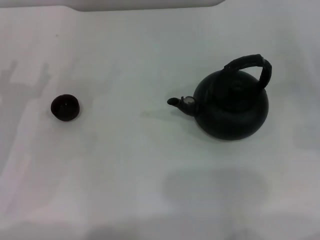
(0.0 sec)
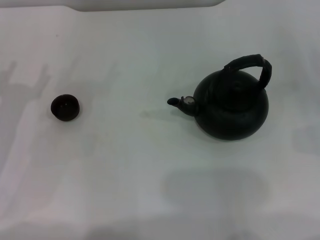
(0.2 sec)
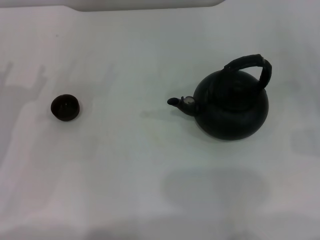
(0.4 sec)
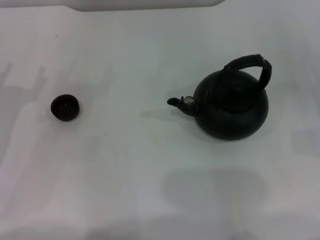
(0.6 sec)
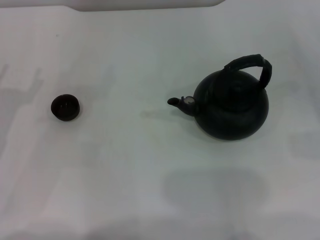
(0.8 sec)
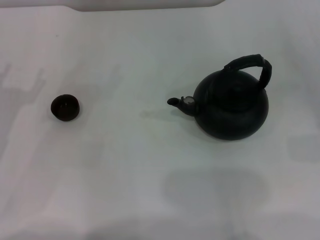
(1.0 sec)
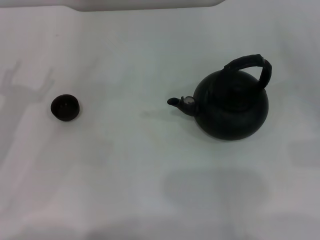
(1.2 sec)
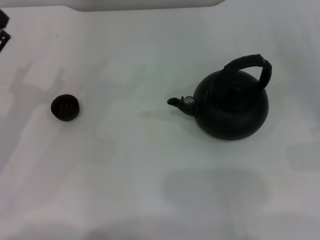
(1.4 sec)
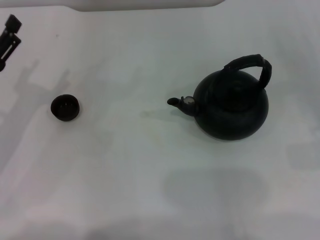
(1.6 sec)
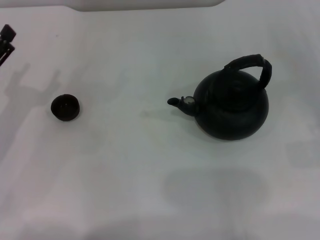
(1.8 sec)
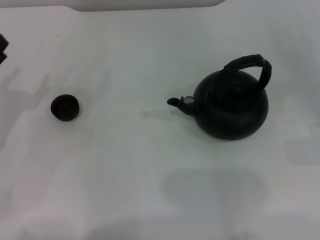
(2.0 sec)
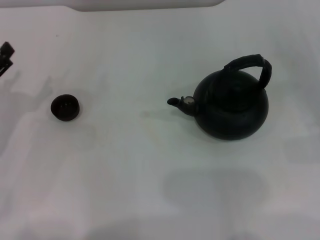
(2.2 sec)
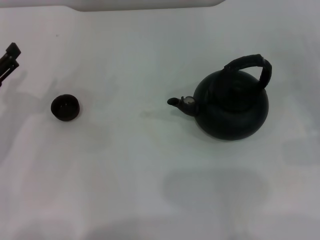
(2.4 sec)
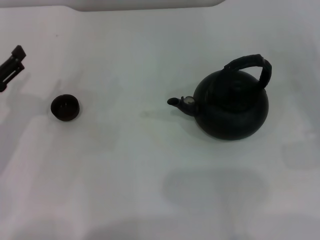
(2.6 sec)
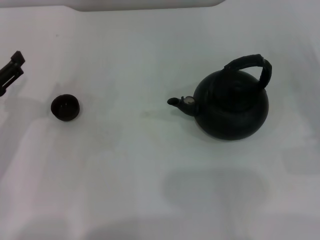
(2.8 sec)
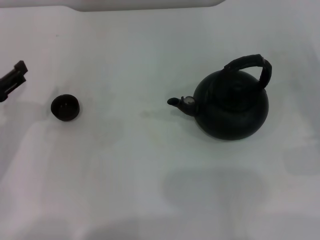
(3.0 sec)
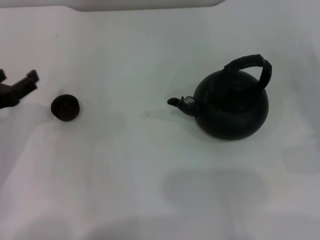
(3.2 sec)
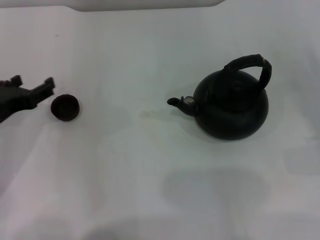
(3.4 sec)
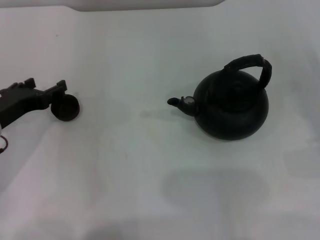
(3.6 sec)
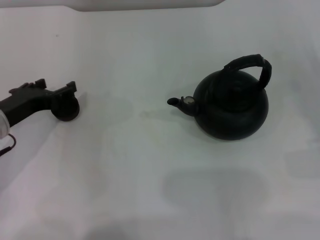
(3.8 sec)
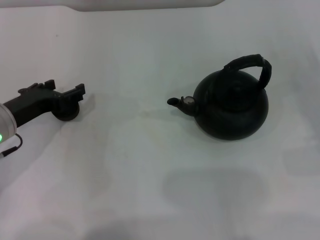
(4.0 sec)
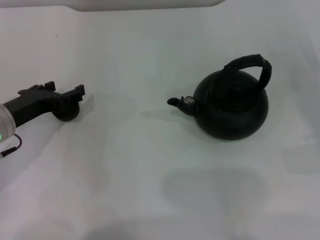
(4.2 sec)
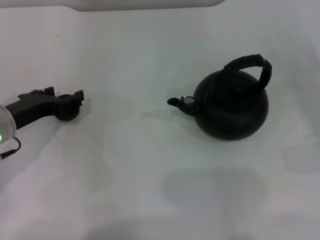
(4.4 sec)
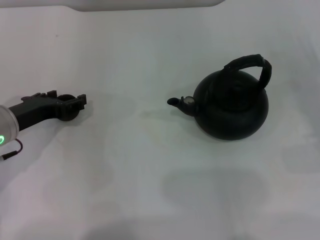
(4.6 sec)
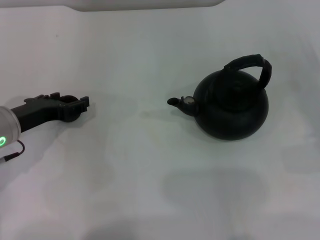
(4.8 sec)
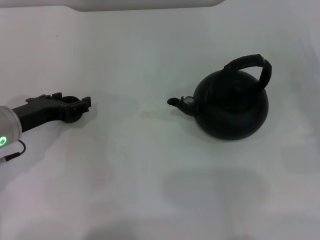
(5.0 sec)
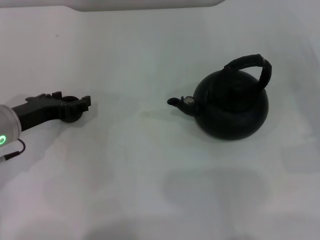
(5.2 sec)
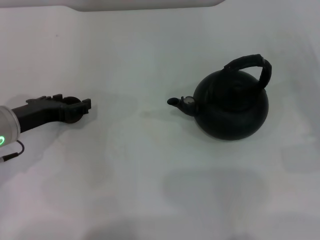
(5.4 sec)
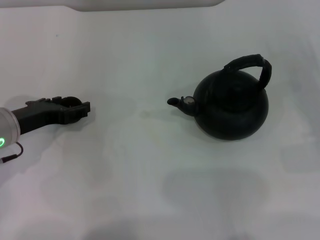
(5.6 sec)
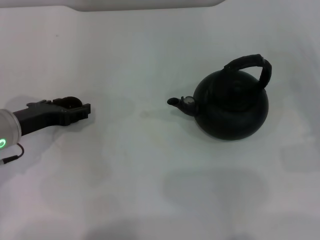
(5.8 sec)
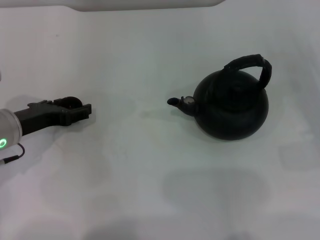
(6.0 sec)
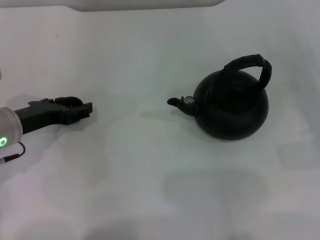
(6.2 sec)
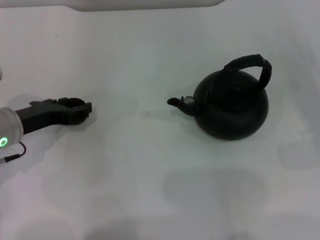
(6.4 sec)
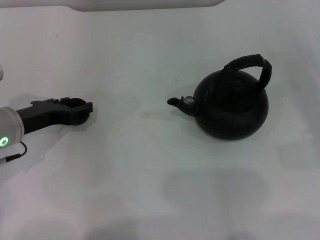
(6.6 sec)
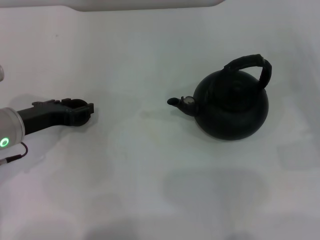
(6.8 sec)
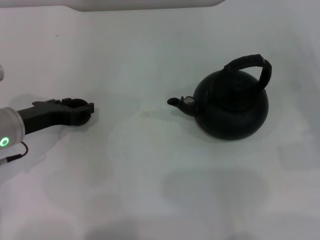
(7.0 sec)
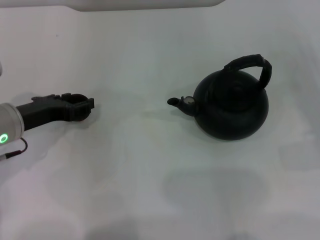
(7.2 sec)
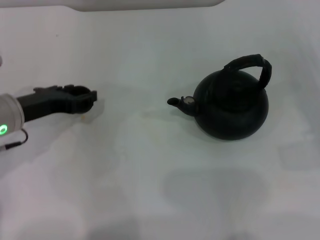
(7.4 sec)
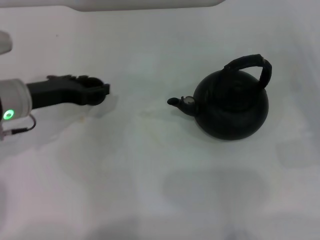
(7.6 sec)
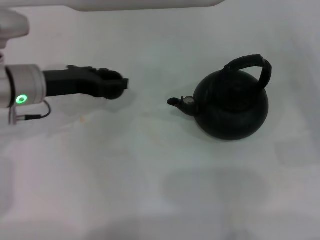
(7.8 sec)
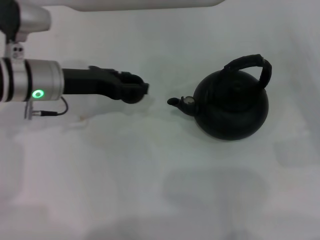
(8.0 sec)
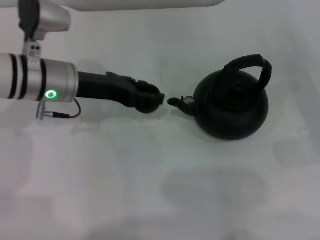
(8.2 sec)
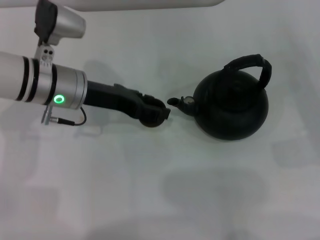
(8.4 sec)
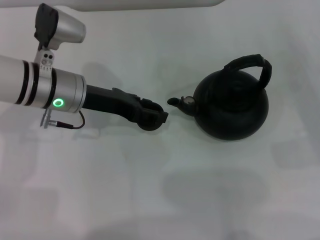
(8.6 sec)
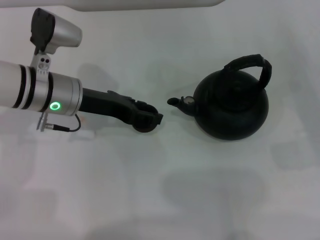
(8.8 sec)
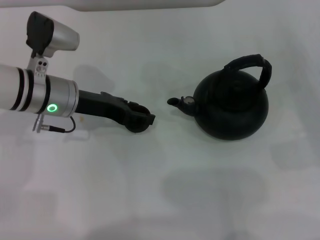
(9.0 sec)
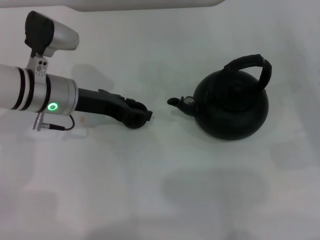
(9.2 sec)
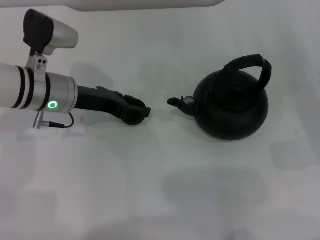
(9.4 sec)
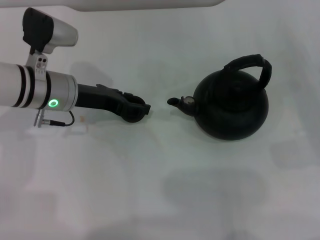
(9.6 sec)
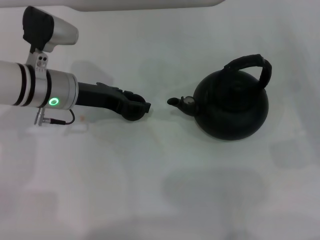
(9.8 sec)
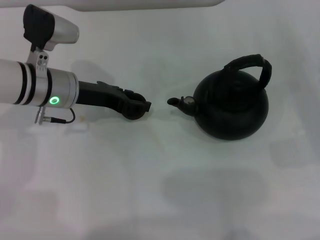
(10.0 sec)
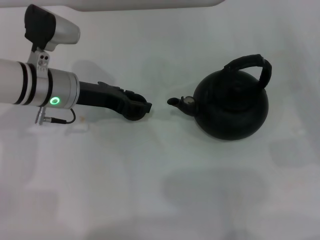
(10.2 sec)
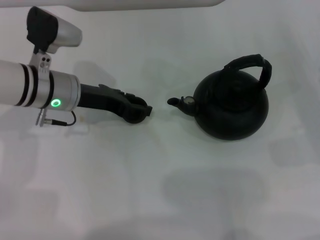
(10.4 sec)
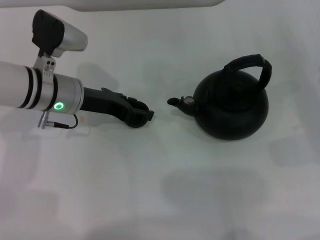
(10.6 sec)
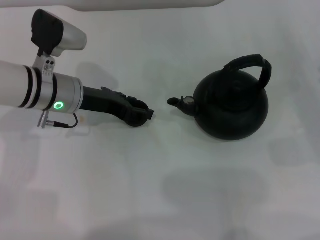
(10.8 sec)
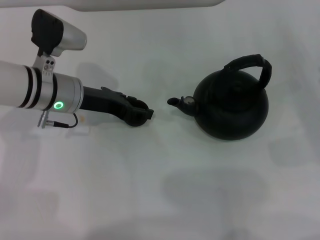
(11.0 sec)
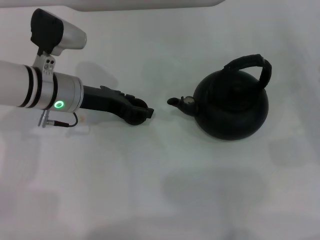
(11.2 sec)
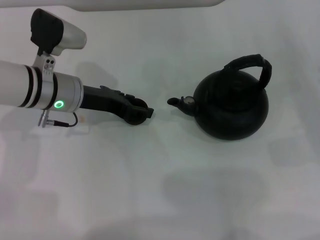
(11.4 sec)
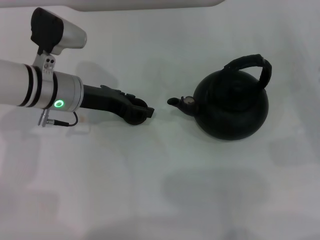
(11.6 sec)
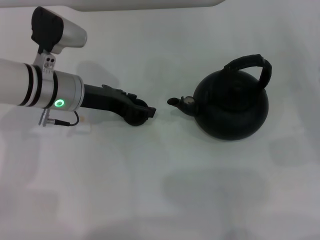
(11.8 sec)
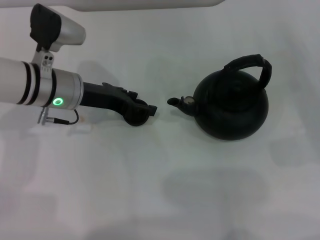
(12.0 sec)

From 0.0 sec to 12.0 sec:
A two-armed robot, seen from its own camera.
Task of the whole recording: Grasp the handle of the teapot with one hand and pour tea into the teacup.
Step, from 0.0 sec to 7.4 sec: Pick up the teacup with the left gripper.
From 3.0 sec to 4.4 sec: The left gripper moves some 5 cm.
From 4.4 sec to 6.0 sec: The grippers make only small movements.
From 6.0 sec to 7.6 sec: The left gripper closes.
From 7.6 sec to 9.0 sec: The left gripper travels to the right by approximately 5 cm.
From 9.0 sec to 10.4 sec: The grippers make only small movements.
From 10.4 sec to 12.0 sec: The left gripper opens.

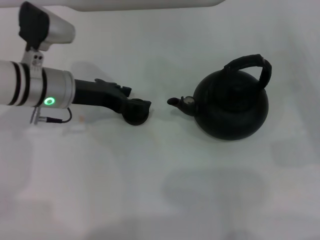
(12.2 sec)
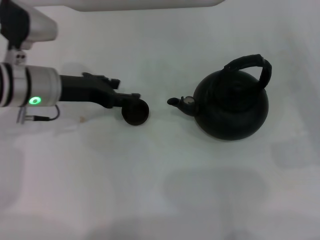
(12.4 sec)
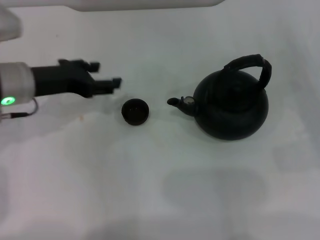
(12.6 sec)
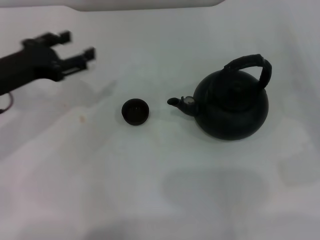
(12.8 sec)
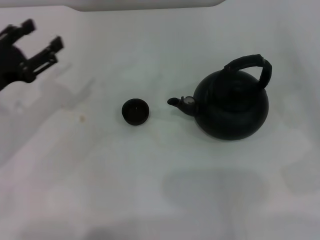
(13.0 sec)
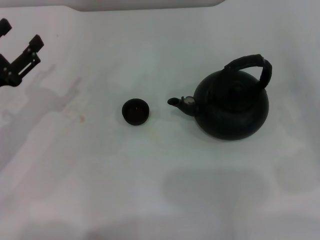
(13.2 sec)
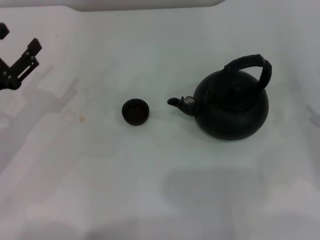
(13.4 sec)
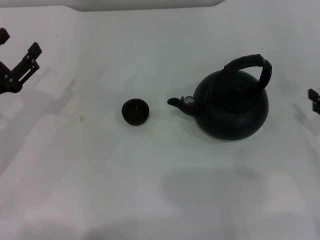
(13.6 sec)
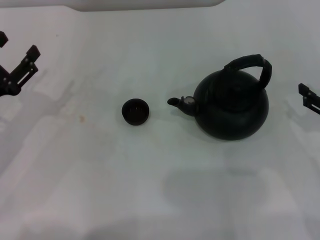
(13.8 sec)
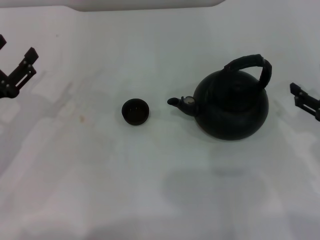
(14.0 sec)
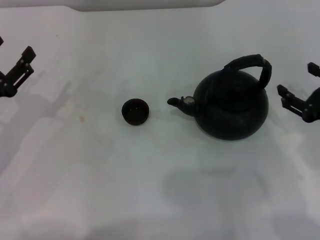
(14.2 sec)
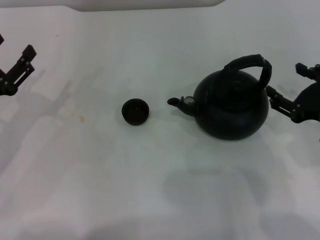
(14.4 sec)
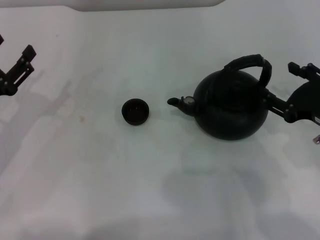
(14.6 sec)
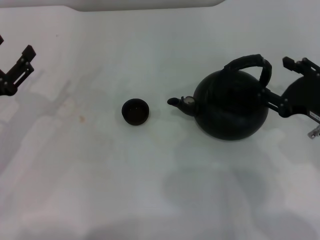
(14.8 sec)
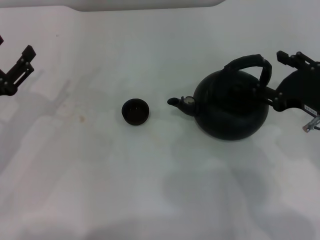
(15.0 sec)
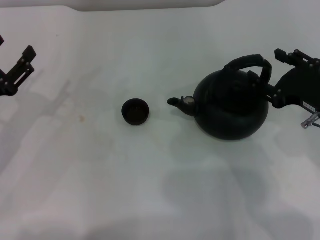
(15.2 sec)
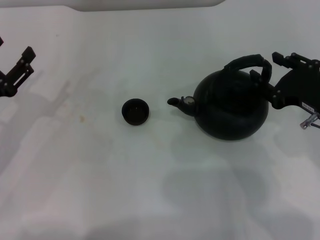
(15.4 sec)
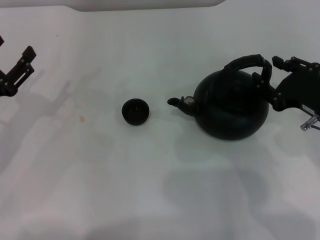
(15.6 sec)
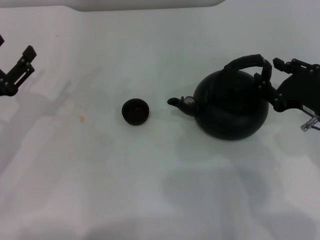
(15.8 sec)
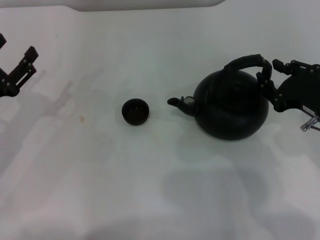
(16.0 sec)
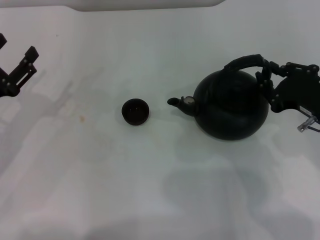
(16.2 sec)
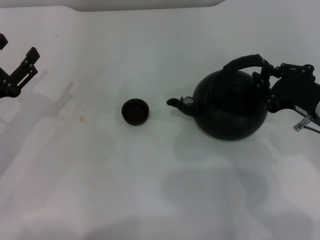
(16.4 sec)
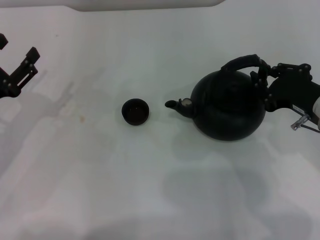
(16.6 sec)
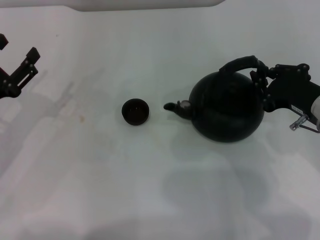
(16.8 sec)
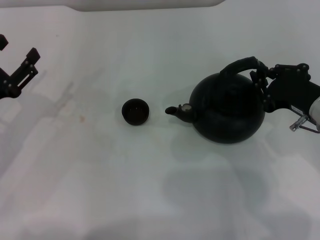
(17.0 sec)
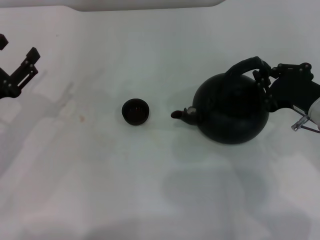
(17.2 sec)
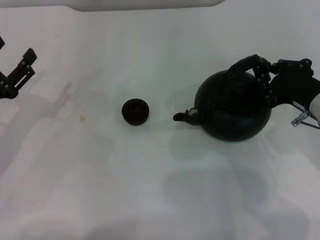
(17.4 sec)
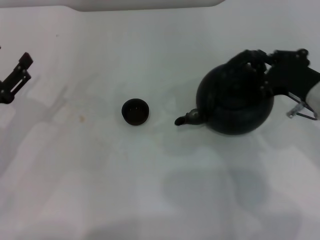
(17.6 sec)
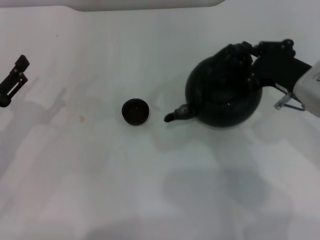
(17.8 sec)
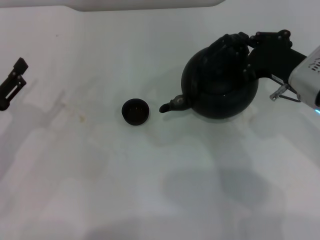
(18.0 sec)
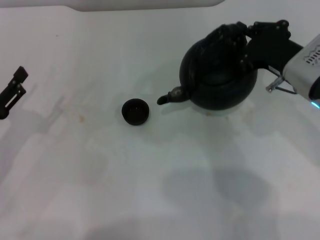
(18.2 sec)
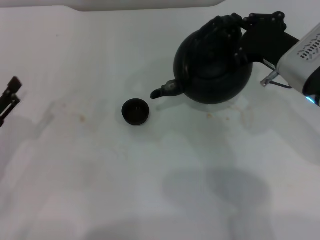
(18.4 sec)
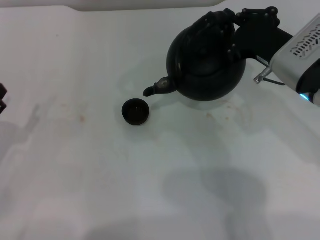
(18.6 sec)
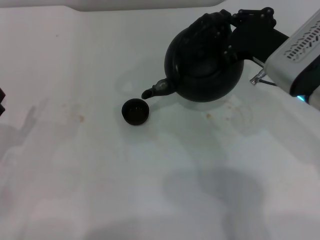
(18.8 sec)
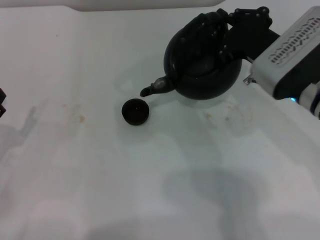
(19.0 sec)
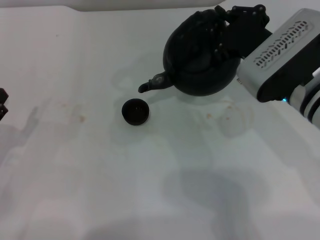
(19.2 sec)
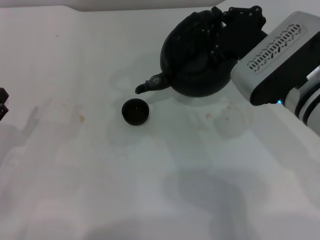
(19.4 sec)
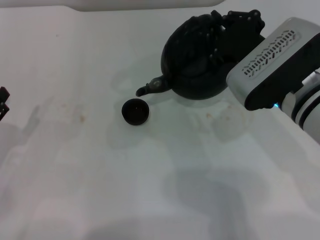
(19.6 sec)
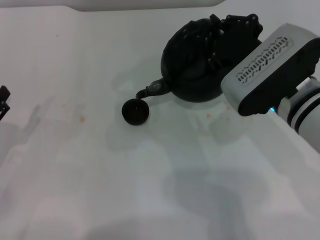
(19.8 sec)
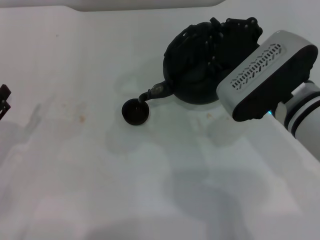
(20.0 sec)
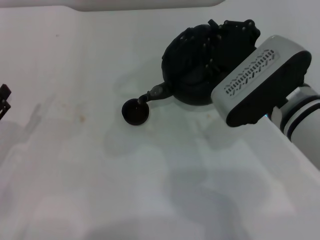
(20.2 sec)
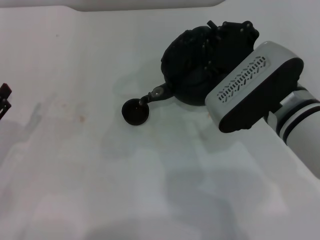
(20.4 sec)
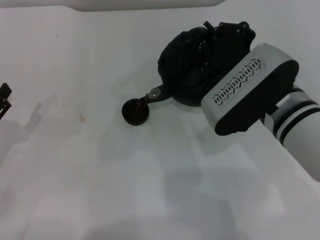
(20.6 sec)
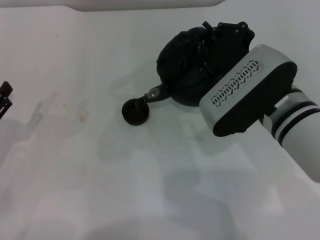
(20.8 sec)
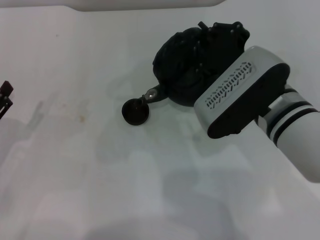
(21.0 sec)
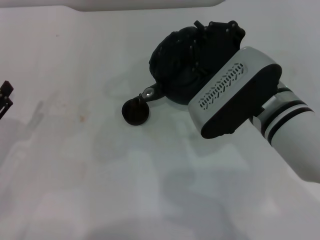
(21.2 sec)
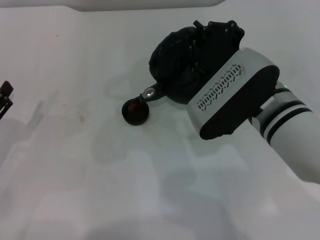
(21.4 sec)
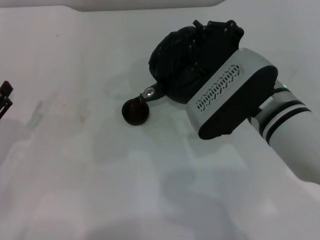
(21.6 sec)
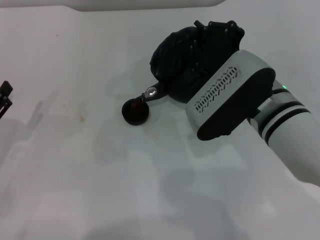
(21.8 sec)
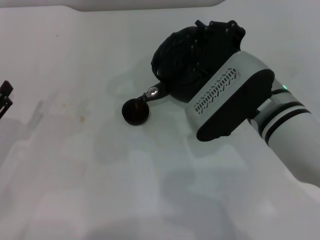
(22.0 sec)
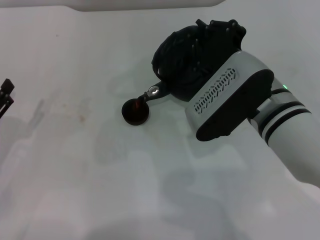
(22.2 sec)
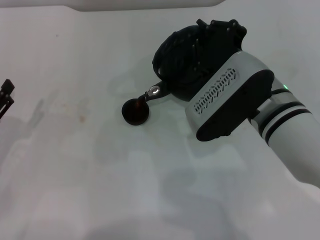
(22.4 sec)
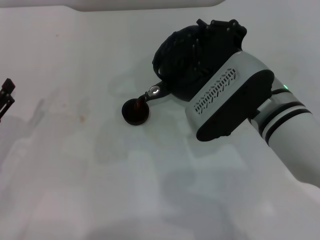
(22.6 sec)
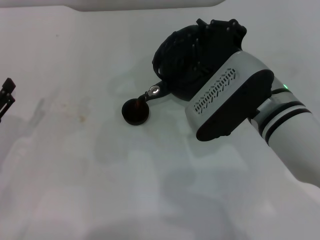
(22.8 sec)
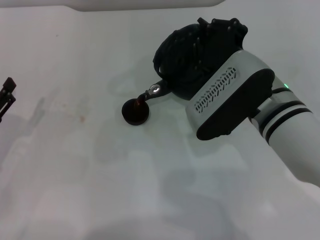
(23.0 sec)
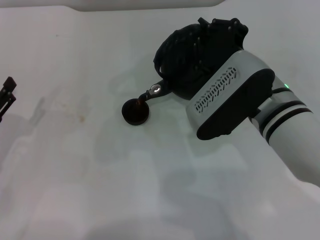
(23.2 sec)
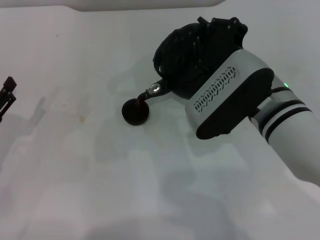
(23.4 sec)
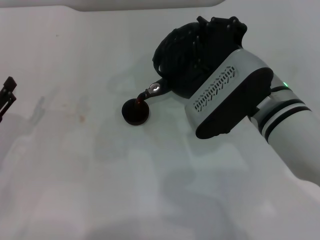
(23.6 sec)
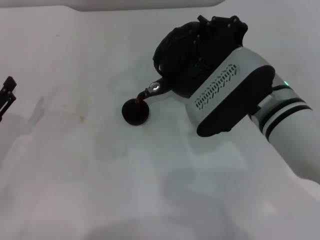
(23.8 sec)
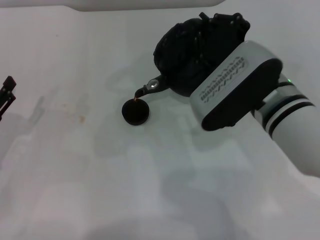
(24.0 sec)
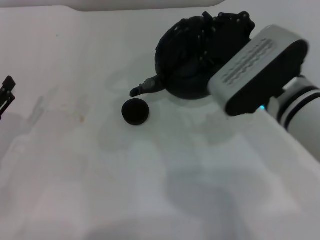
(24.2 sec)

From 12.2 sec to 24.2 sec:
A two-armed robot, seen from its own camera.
Task of the whole recording: Grasp the handle of the teapot with one hand and pour tea into the teacup.
Step, from 12.8 sec to 18.0 sec: Pick up the teapot with the right gripper.
From 12.2 sec to 13.8 sec: The left gripper goes about 15 cm to the left and backward. Meanwhile the right gripper is displaced to the left by about 5 cm.
From 13.8 sec to 15.2 sec: The right gripper goes roughly 5 cm to the left.
From 15.2 sec to 16.6 sec: The right gripper closes up.
From 16.6 sec to 18.2 sec: The right gripper shifts by roughly 5 cm.
From 18.2 sec to 19.8 sec: The right gripper goes roughly 5 cm to the left.
From 19.8 sec to 21.2 sec: There are only small adjustments of the grippers.
From 21.2 sec to 22.6 sec: Neither gripper changes place.
From 22.6 sec to 24.2 sec: The grippers stay close to where they were, moving slightly.
